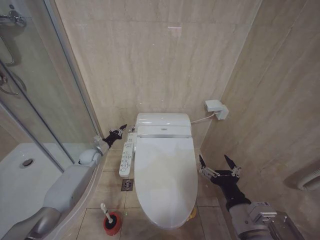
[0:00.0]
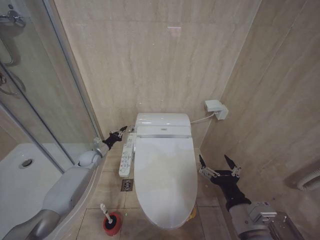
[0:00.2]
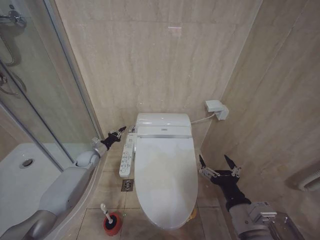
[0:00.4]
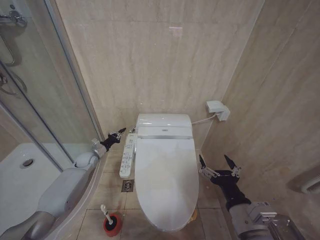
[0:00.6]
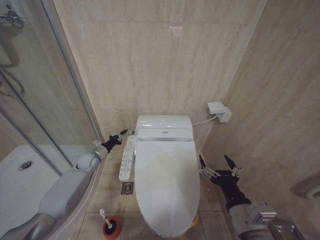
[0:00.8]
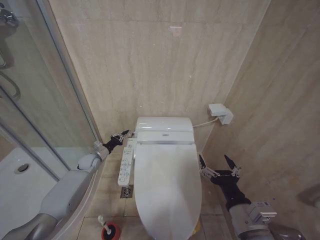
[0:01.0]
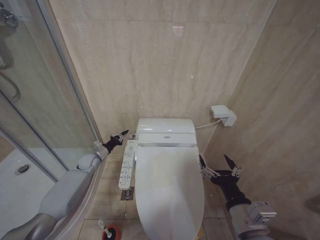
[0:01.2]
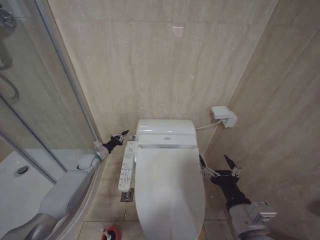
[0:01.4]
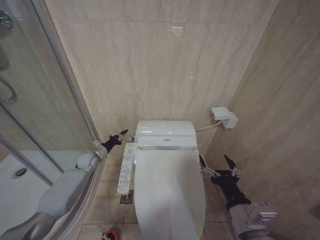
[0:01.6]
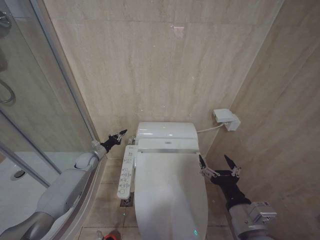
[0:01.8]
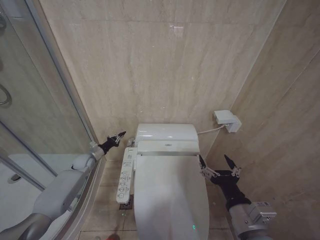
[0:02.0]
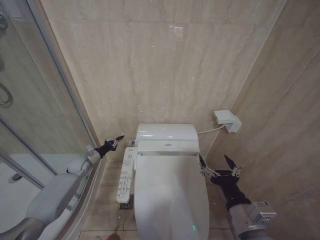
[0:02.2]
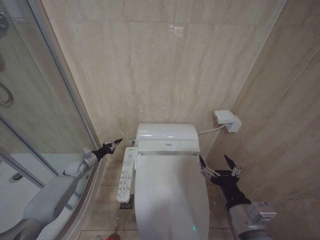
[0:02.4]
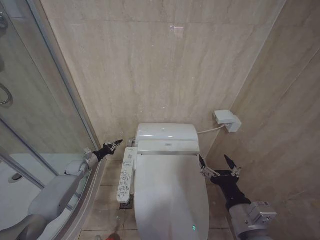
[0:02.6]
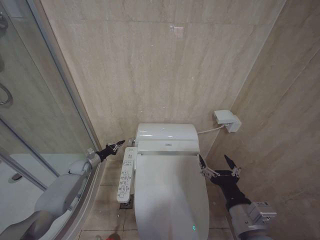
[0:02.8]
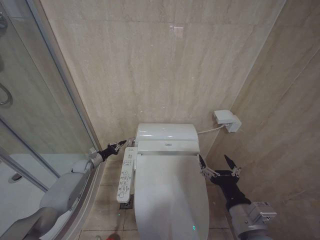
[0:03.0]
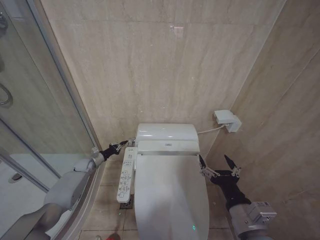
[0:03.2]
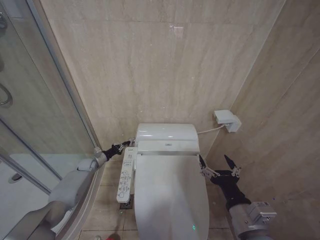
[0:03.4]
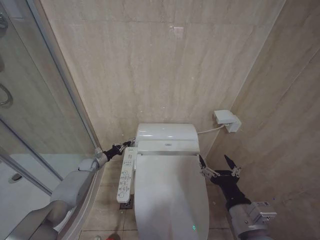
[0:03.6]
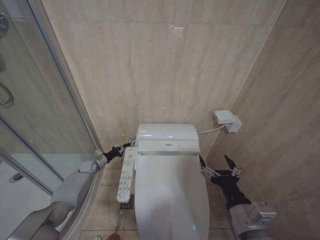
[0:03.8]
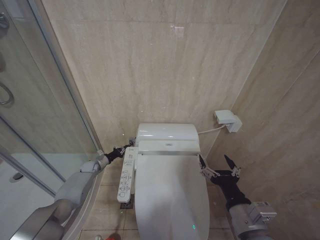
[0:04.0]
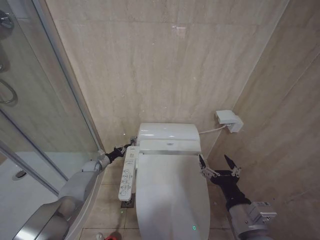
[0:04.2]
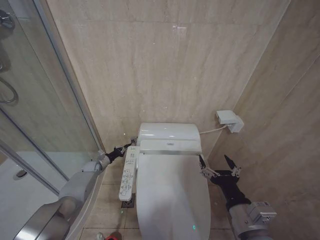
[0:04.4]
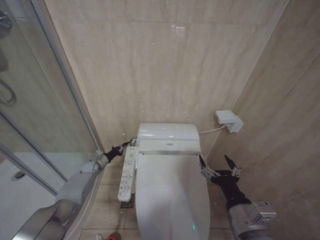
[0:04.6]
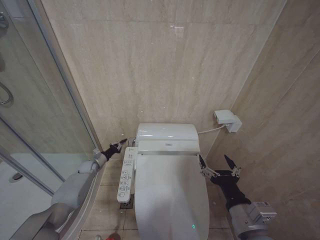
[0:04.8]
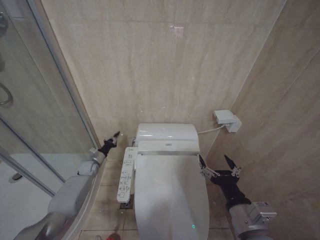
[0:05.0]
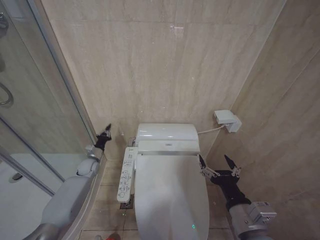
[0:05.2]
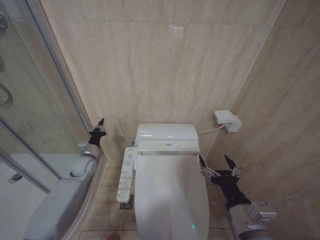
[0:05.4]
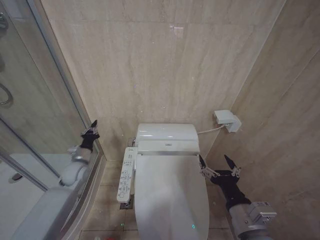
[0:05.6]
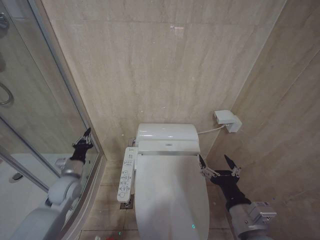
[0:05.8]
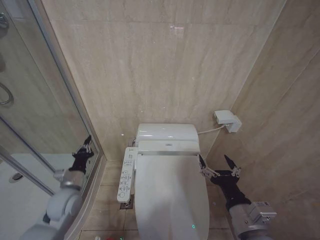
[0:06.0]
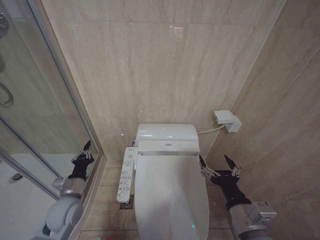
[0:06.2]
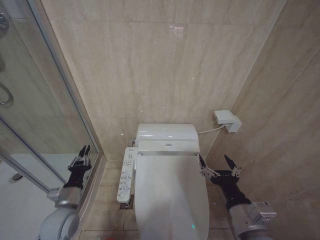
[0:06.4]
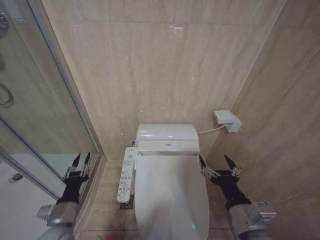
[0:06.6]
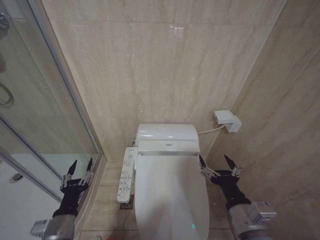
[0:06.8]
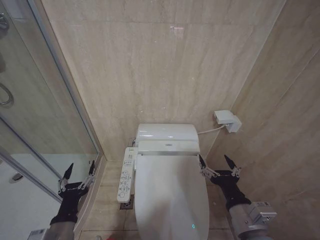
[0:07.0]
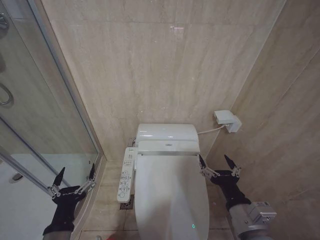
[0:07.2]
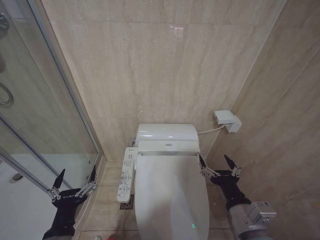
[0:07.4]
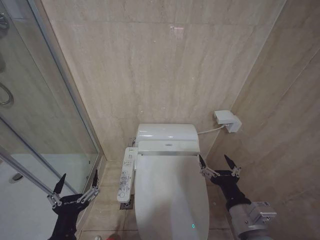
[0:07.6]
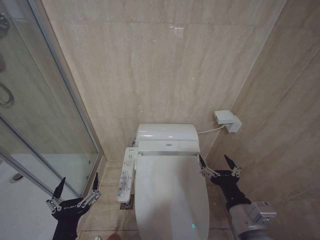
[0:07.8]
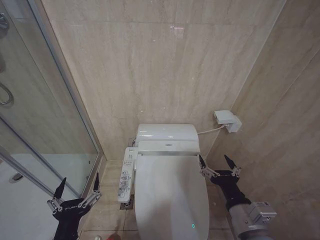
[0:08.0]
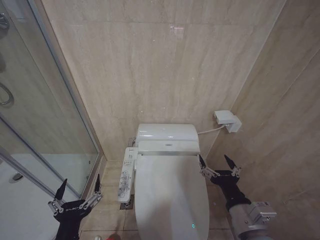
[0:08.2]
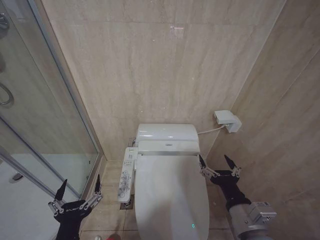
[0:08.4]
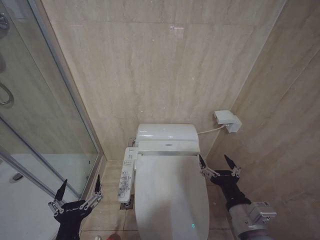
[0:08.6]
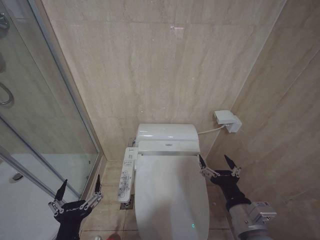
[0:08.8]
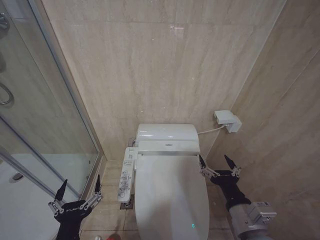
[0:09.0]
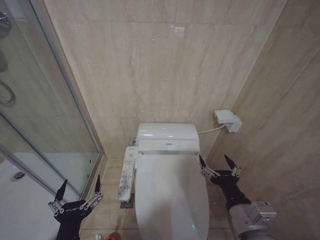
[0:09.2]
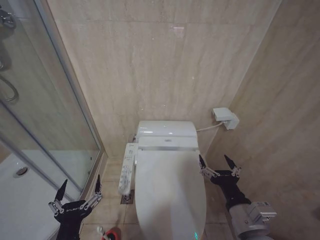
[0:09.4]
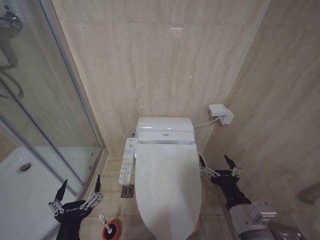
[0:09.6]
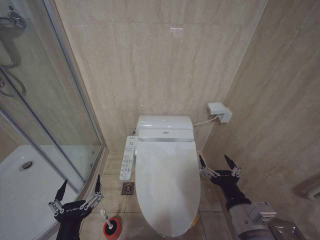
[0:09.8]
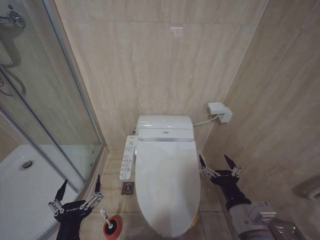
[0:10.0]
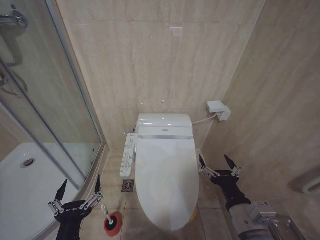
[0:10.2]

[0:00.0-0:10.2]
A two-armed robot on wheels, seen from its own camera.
Task of the whole recording: Open the toilet lid, clean the toilet bowl with a toilet brush, close the toilet lid, and flush.
0:00.0 to 0:01.4: The grippers move only a little.
0:01.4 to 0:03.0: The left gripper is displaced to the left by roughly 5 cm.
0:03.0 to 0:04.4: The left gripper ends up about 5 cm from where it was.
0:04.4 to 0:05.8: The left gripper is displaced backward and upward by roughly 25 cm.
0:05.8 to 0:07.2: The left gripper moves backward, some 25 cm, and opens up.
0:07.2 to 0:08.8: The left gripper shifts about 5 cm backward.
0:08.8 to 0:10.2: The two grippers keep their place.

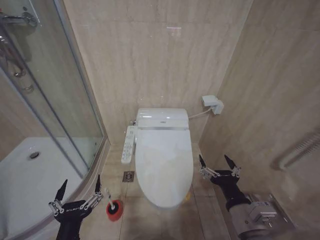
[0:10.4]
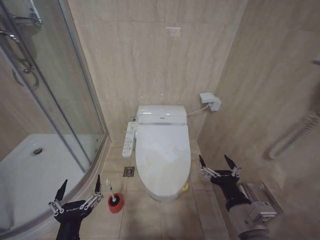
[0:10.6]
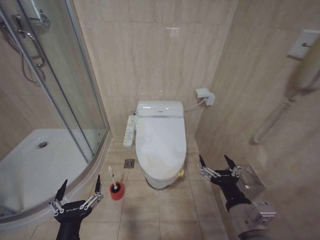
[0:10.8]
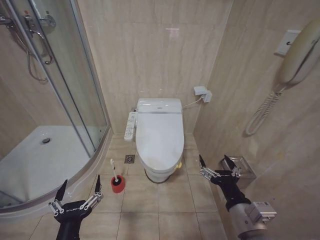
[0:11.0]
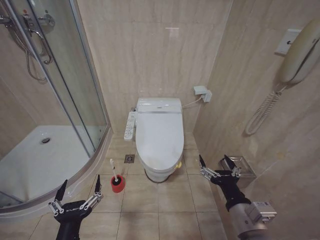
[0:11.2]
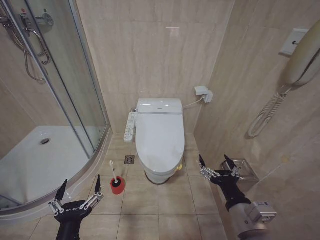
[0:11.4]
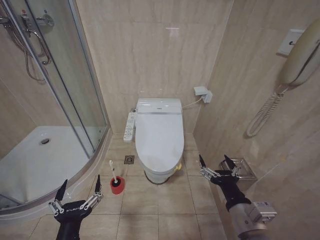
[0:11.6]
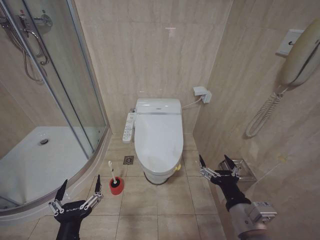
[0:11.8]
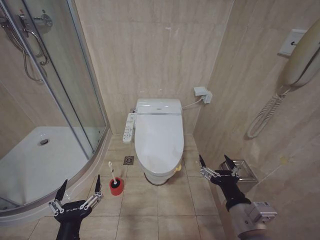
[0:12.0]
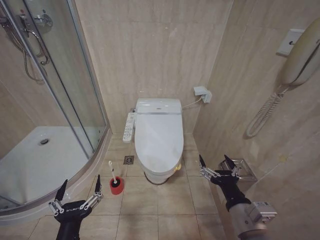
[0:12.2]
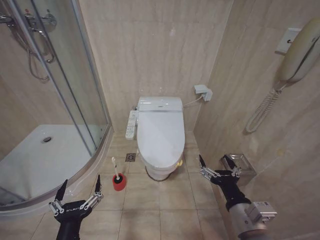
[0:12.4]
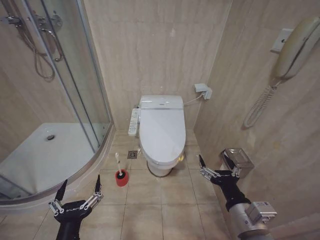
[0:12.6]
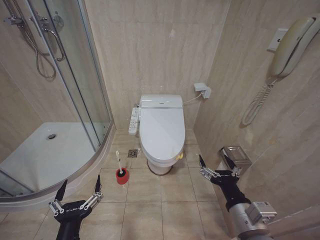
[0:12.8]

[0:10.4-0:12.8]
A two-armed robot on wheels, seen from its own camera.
Task of the whole recording: Open the toilet lid, clean the toilet bowl with a toilet brush, close the toilet lid, and flush.
0:10.4 to 0:12.8: Both grippers stay about where they are.
